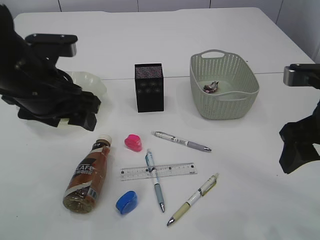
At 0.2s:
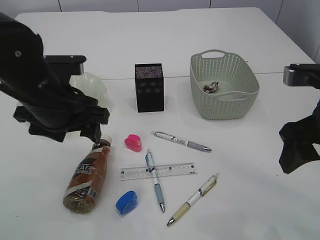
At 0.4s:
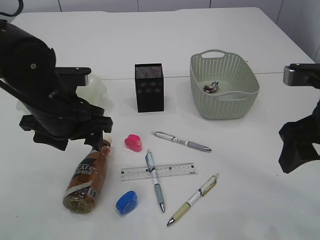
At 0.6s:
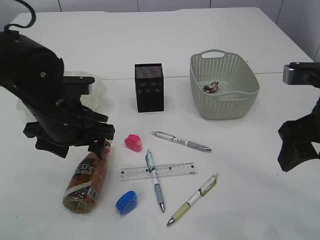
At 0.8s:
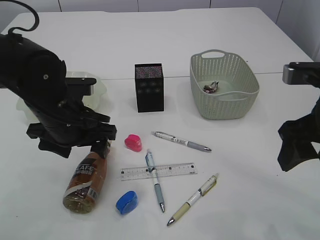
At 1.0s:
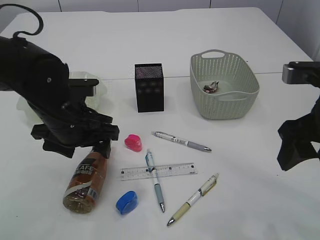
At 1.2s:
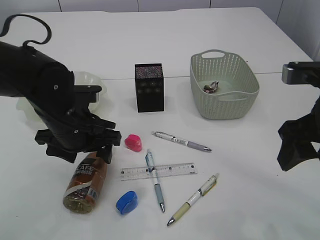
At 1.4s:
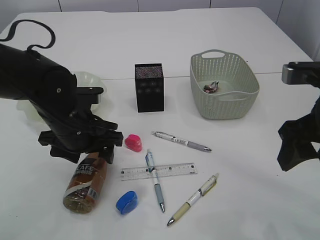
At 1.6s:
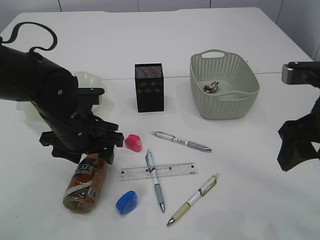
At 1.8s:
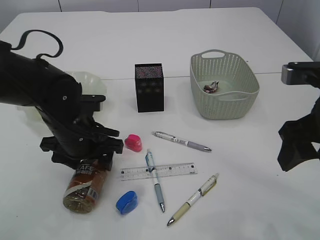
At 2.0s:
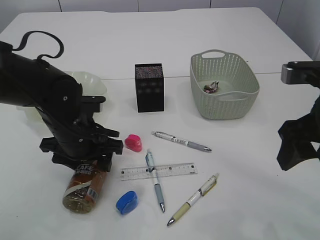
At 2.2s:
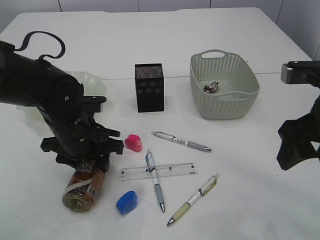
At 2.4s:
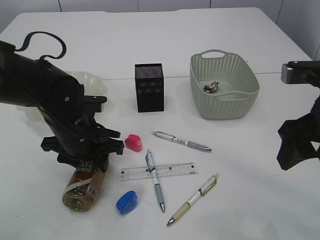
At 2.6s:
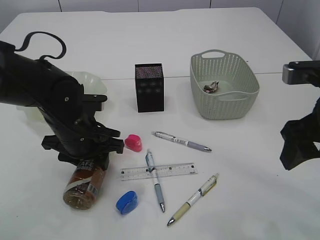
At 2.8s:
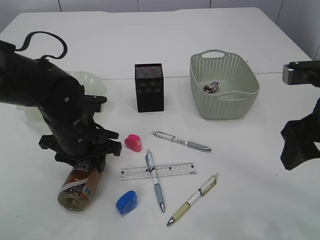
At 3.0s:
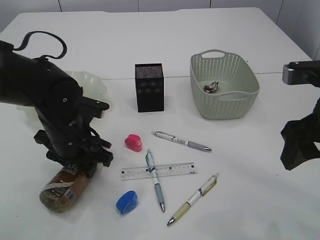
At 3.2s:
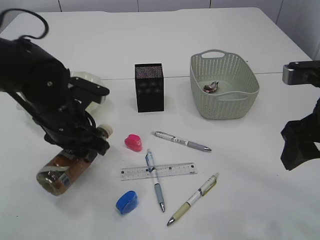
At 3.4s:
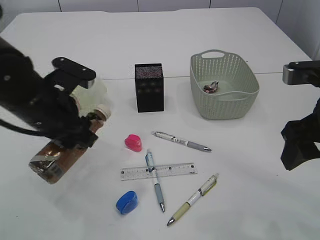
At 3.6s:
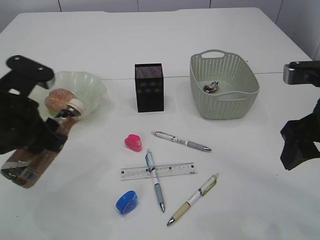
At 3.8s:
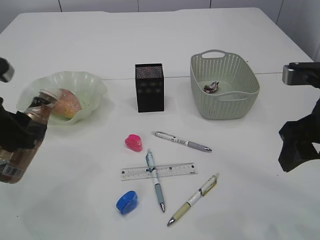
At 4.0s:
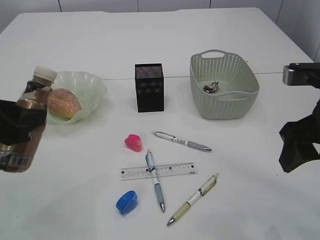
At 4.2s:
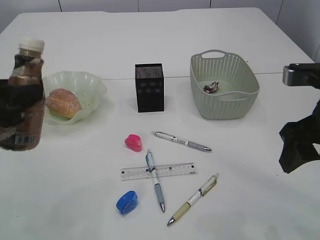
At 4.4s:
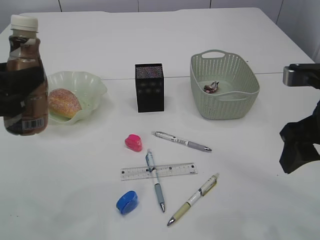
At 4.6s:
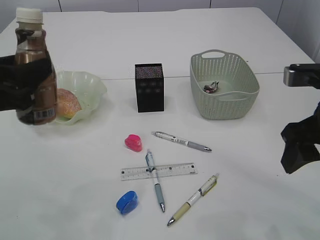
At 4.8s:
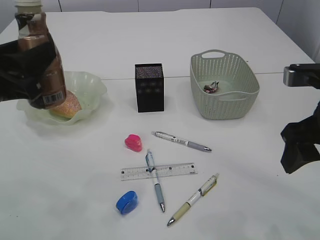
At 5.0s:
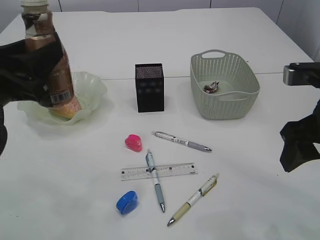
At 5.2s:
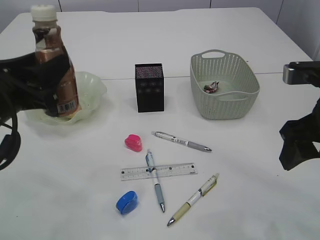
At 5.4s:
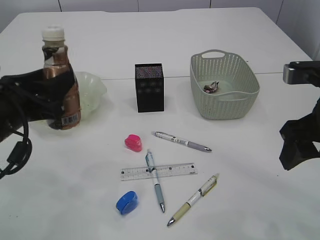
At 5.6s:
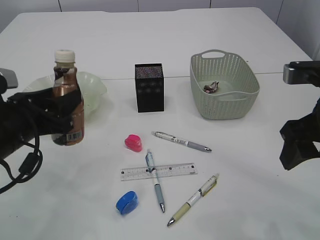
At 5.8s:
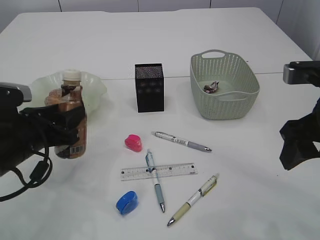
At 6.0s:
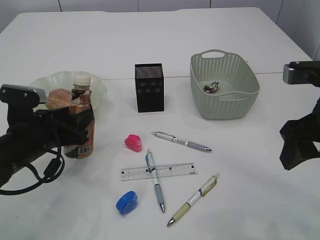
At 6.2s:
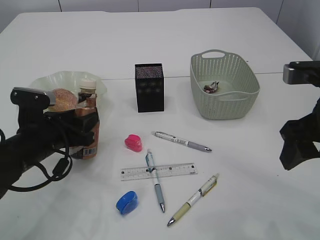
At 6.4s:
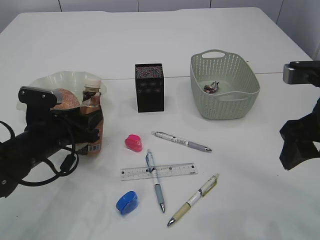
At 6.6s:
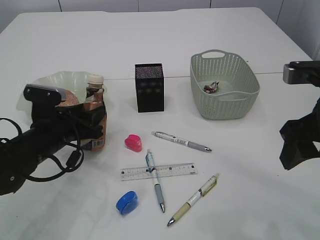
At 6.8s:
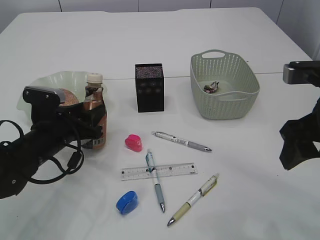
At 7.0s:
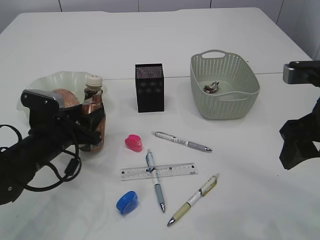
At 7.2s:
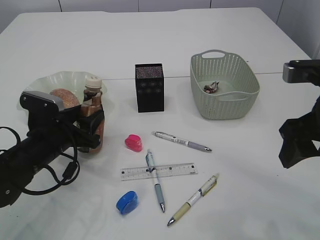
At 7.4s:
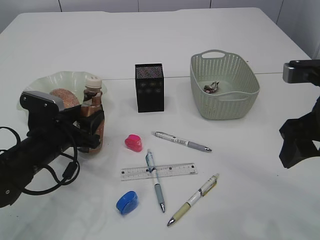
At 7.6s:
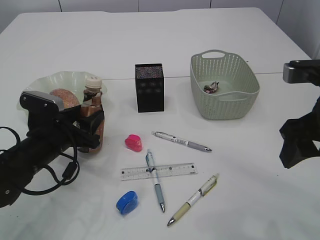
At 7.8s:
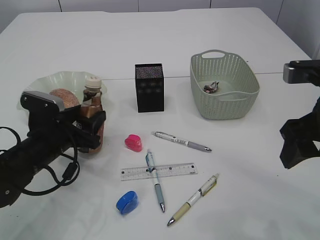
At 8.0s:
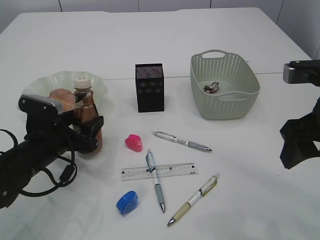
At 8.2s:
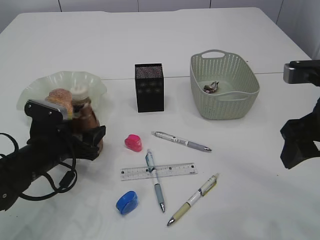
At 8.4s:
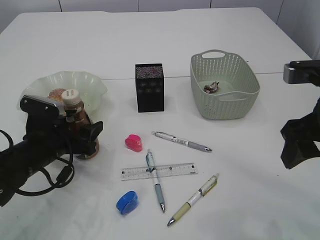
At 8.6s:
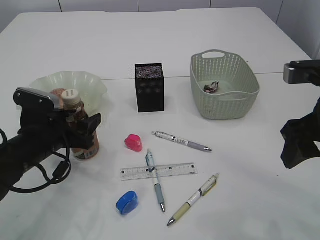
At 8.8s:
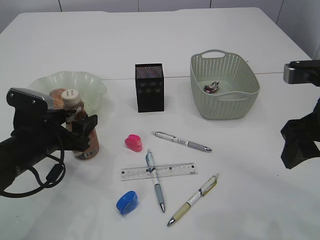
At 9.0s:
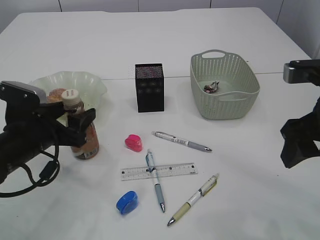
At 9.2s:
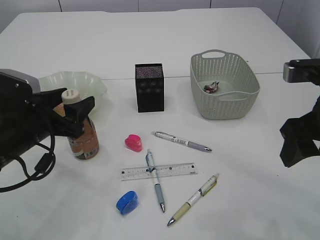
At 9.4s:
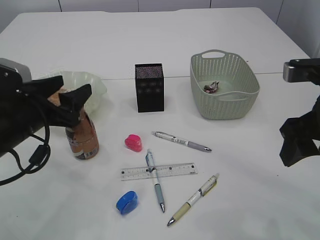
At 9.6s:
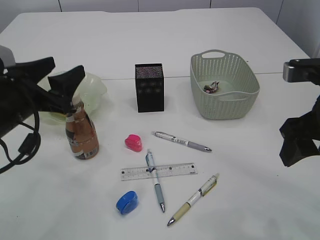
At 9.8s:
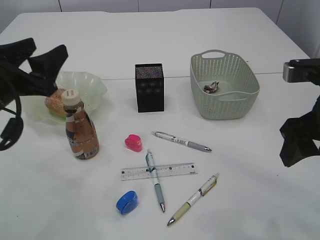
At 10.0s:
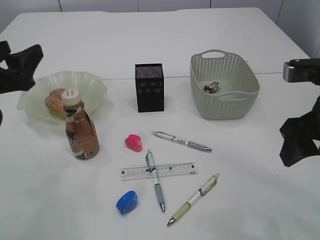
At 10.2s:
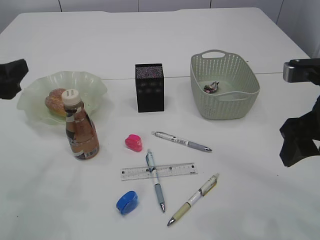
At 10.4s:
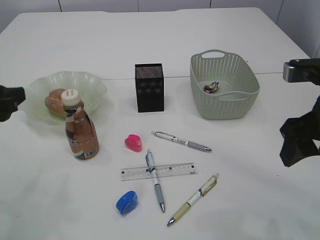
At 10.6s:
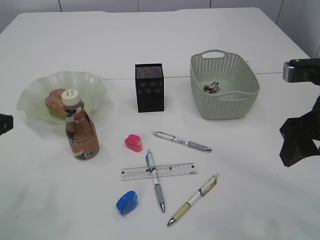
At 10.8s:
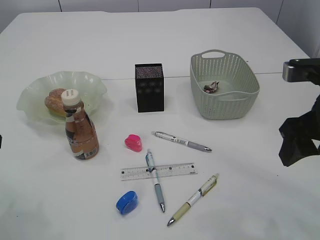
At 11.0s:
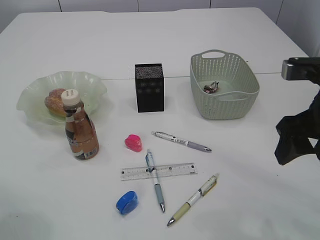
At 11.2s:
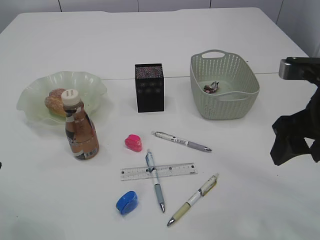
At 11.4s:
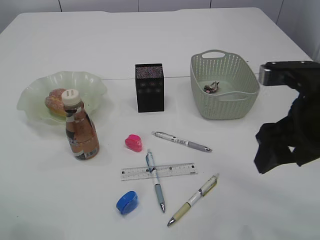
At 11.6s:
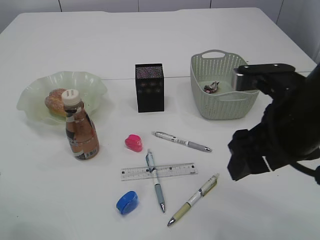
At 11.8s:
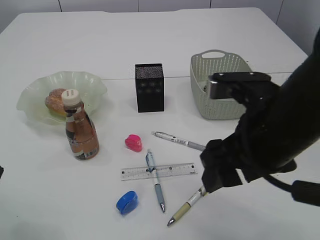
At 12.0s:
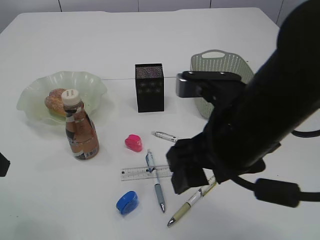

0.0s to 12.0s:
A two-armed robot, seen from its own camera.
Step, 0.0s to 3.4s: Pick up the bottle with the left arm.
Step, 3.6s to 9.6s: Place the bottle.
0.0s to 1.6s: The left gripper moves downward, approximately 10 cm.
1.6s to 3.0s: The left gripper closes.
3.0s to 4.4s: The left gripper goes some 20 cm upward, backward and to the left.
4.4s to 6.0s: The left gripper is displaced downward and forward by approximately 15 cm.
6.0s to 9.0s: The grippers make only small movements.
9.0s to 10.4s: The left gripper moves upward and to the left, approximately 10 cm.
10.4s to 12.0s: The left gripper travels backward by approximately 5 cm, while the right gripper moves to the left, some 15 cm.

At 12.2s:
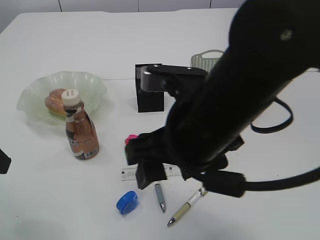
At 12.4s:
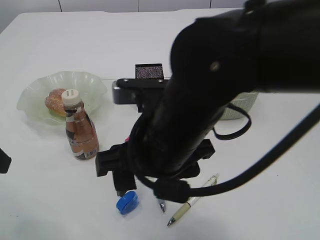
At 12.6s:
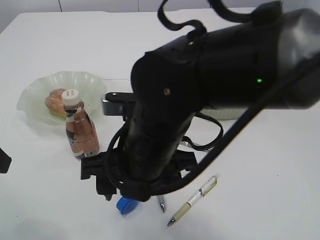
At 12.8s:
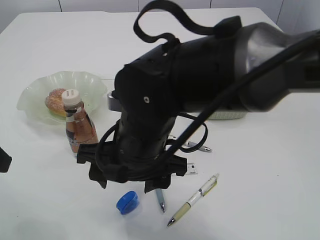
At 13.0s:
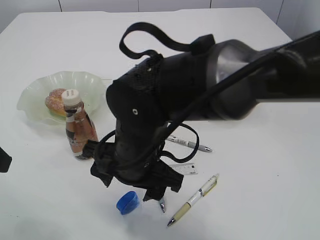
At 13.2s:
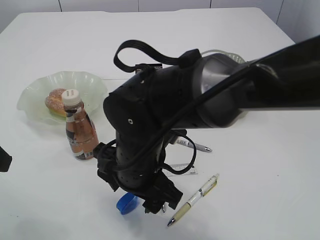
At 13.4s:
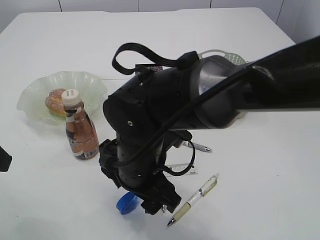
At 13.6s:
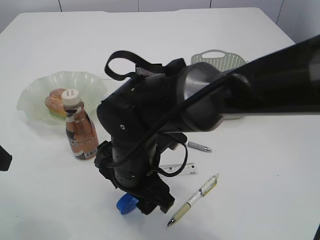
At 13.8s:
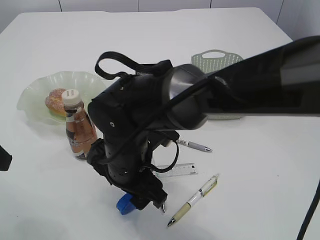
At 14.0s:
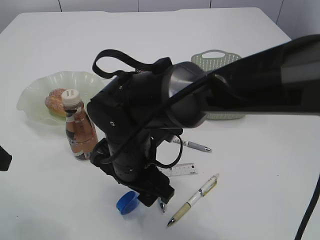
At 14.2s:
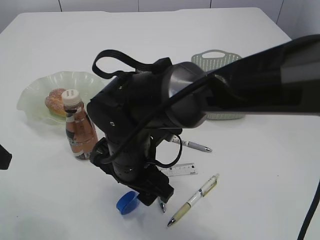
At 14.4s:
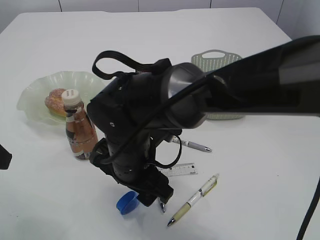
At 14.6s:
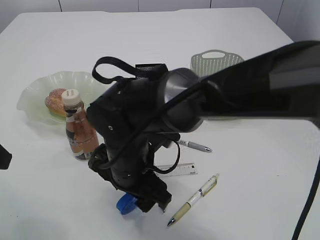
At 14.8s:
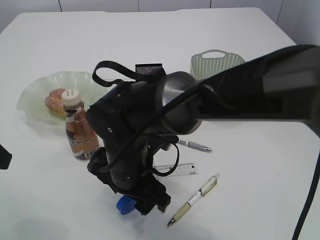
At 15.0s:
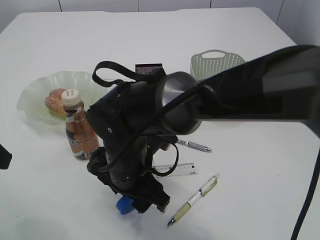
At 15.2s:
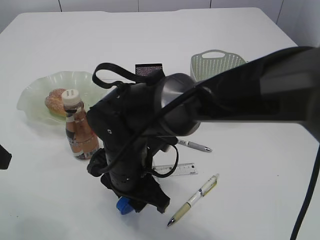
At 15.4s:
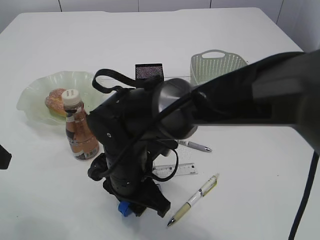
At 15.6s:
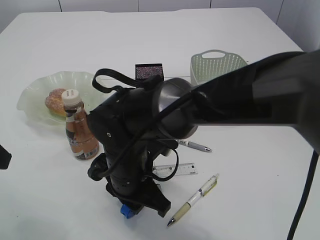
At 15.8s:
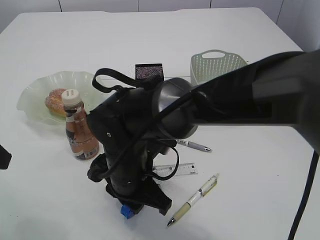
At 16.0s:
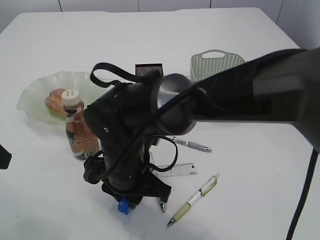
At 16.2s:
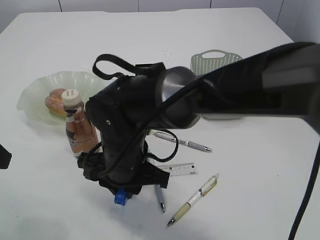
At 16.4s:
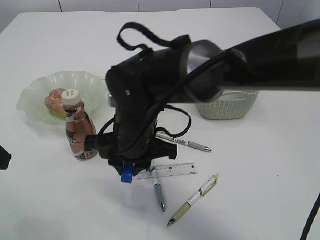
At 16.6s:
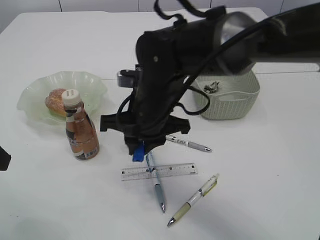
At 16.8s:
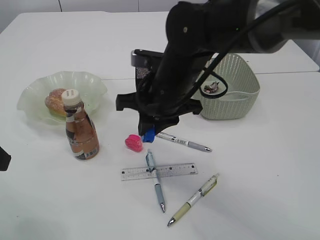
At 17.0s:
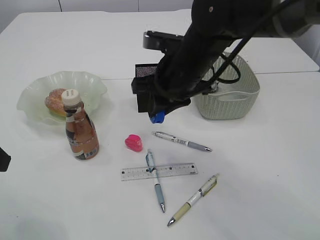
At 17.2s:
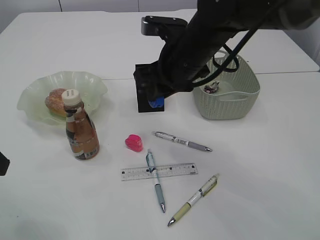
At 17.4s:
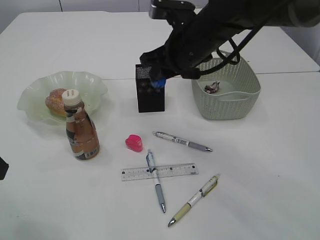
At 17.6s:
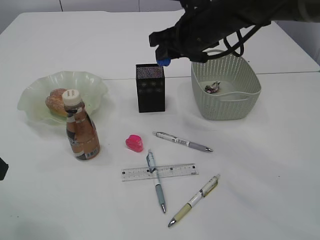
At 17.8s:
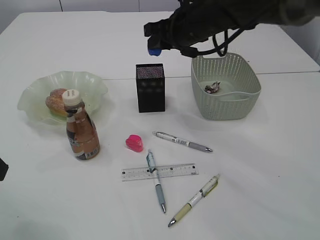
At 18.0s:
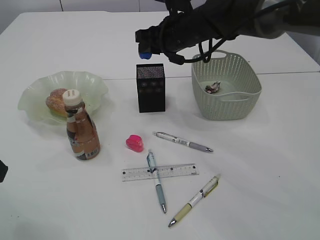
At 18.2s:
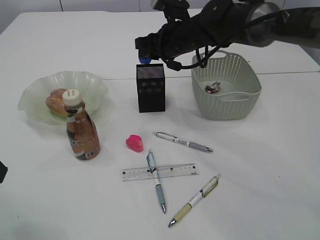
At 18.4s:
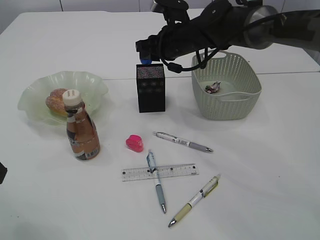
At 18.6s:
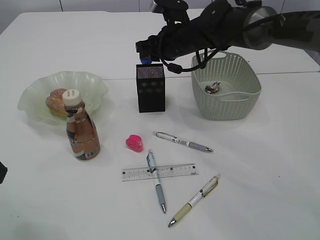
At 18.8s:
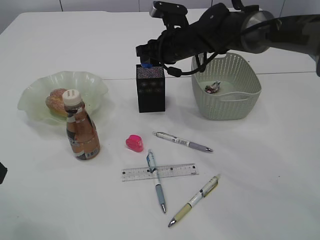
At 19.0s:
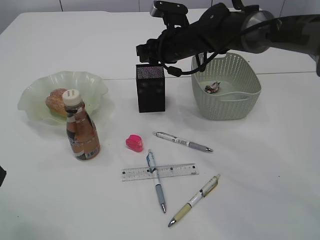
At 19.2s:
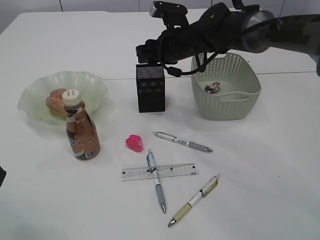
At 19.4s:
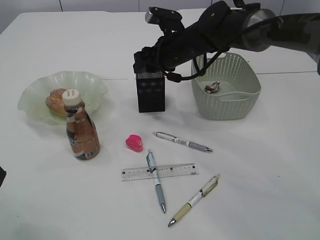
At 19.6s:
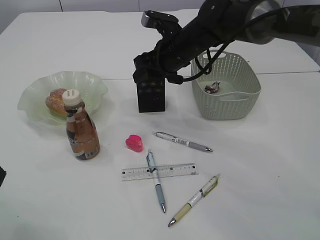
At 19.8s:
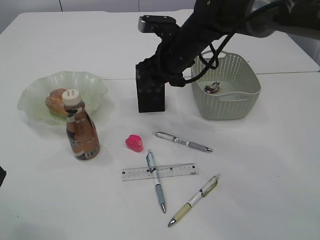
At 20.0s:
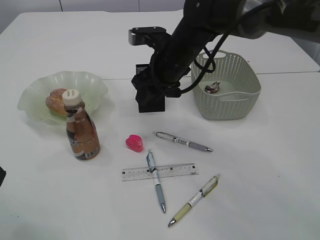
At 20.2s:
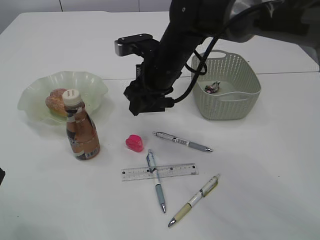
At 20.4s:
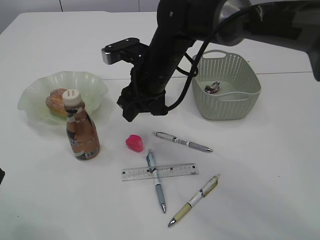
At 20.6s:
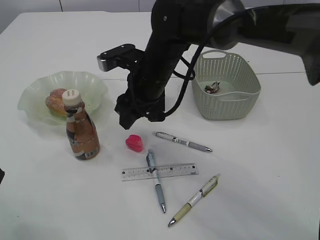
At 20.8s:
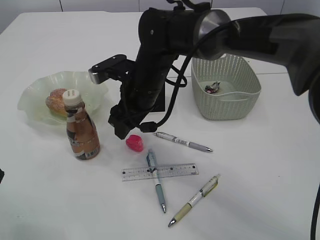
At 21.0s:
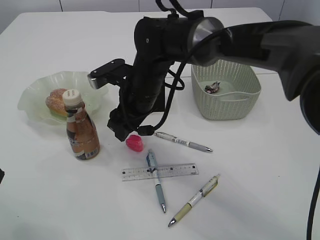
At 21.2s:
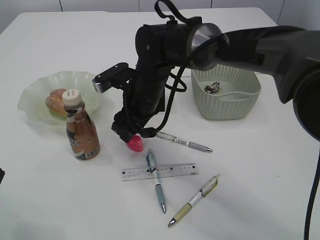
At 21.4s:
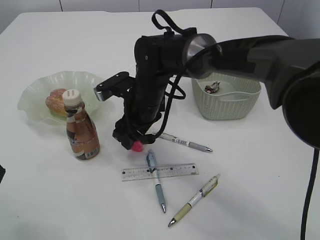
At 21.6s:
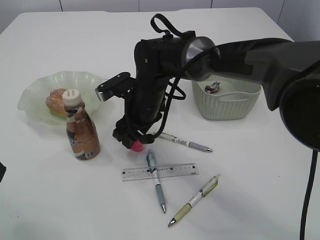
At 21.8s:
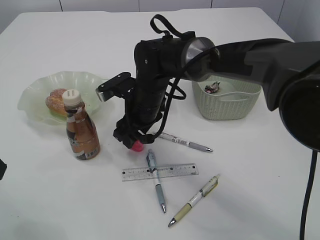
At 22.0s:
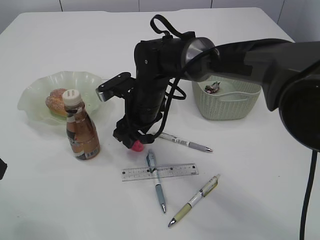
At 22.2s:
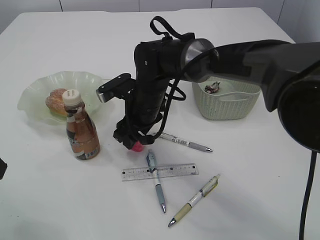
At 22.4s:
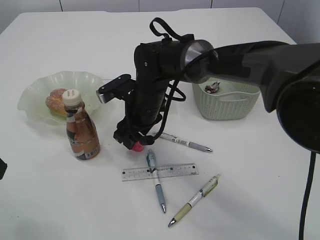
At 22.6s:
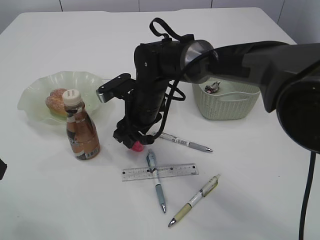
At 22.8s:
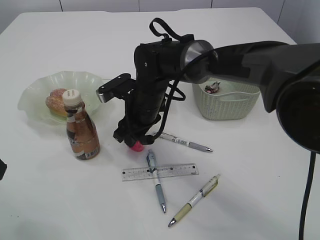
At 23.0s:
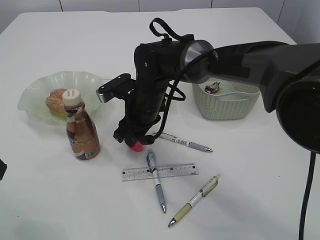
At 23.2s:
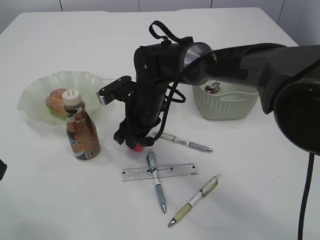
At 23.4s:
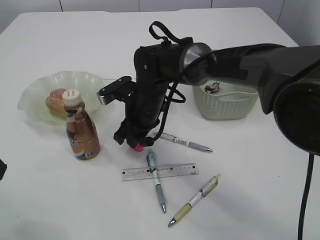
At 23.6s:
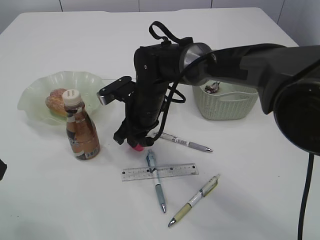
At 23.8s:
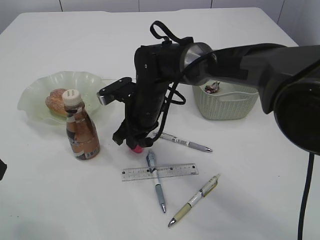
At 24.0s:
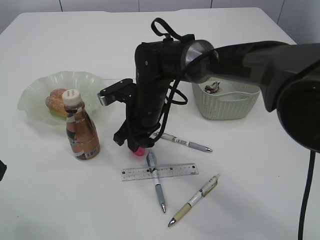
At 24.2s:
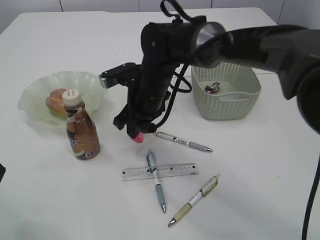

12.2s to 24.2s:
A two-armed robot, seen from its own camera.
Step, 12.2s to 16.2s: Pick up the blue pencil sharpener.
Step, 16.4s to 19.2s: Place the blue pencil sharpener into the pen holder.
12.2s to 13.8s: The right gripper heads downward, to the left and forward, covering some 15 cm.
13.8s to 15.2s: The right gripper closes its fingers.
15.2s to 16.6s: The right gripper goes some 10 cm upward and forward, and closes up.
16.6s to 18.2s: The right gripper is displaced forward and to the right by approximately 20 cm.
19.8s to 21.2s: The right gripper goes approximately 10 cm to the left and backward.
21.2s to 22.6s: The grippers move only a little.
22.6s to 24.2s: The right gripper closes its fingers.
